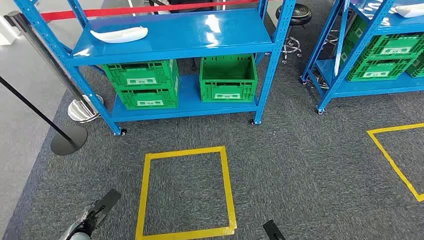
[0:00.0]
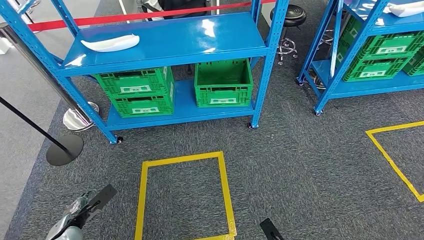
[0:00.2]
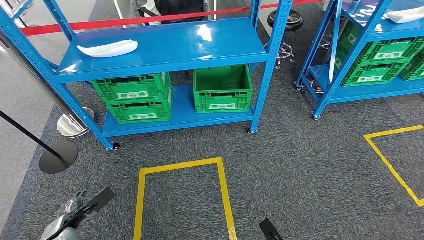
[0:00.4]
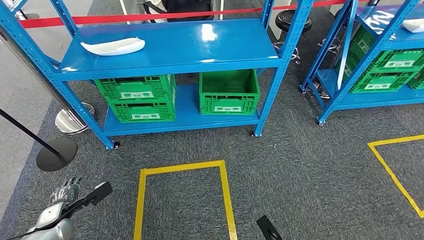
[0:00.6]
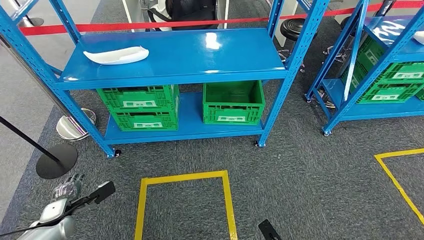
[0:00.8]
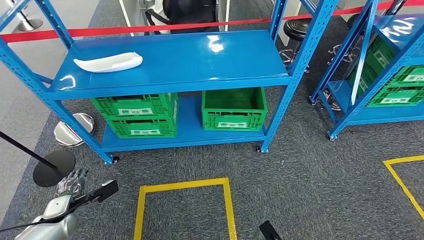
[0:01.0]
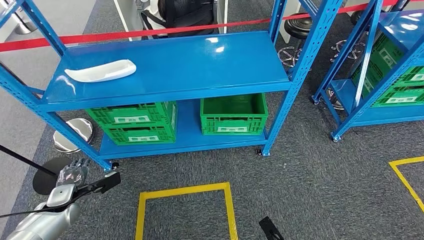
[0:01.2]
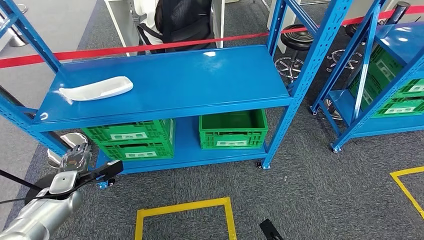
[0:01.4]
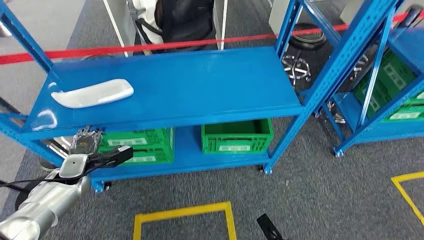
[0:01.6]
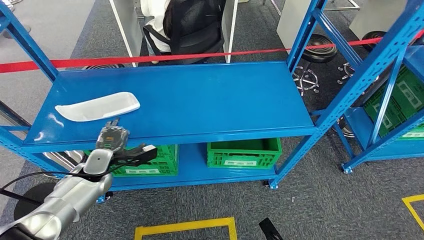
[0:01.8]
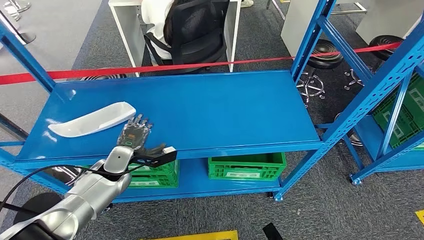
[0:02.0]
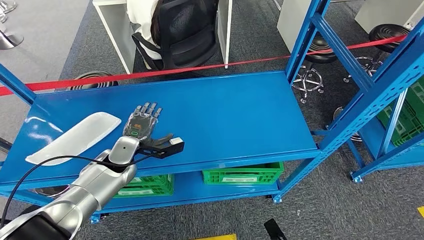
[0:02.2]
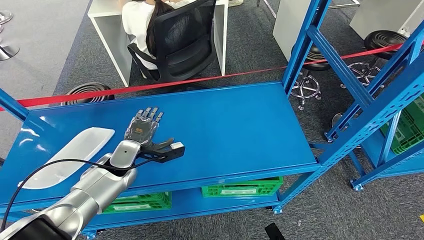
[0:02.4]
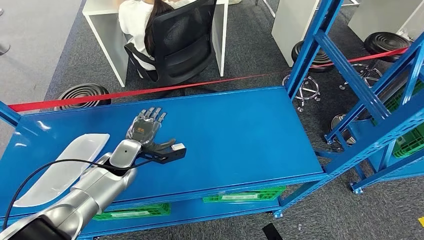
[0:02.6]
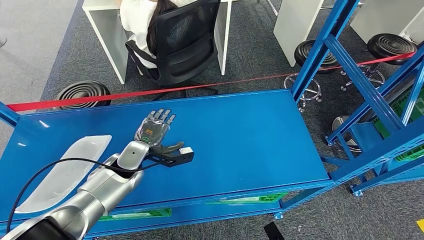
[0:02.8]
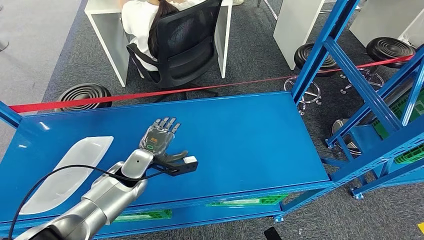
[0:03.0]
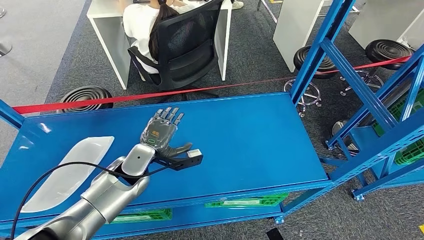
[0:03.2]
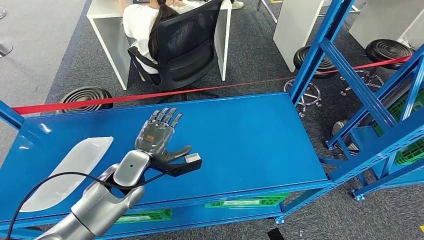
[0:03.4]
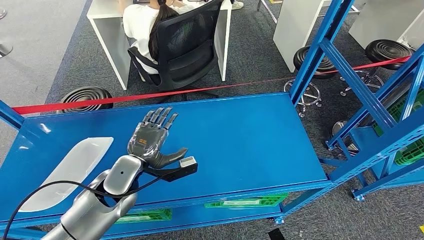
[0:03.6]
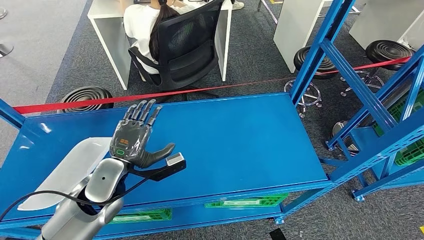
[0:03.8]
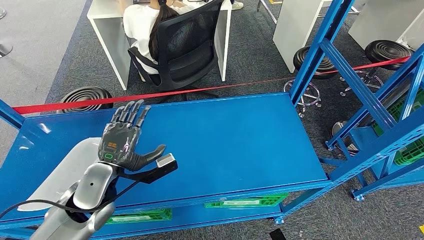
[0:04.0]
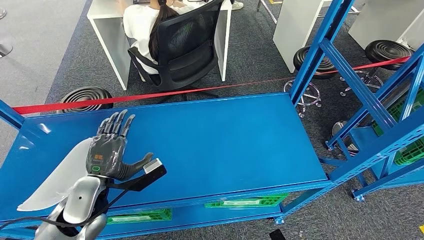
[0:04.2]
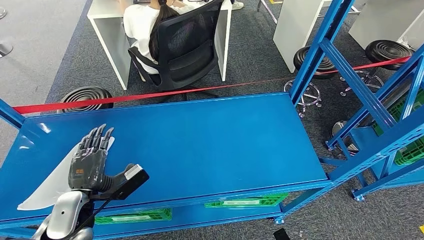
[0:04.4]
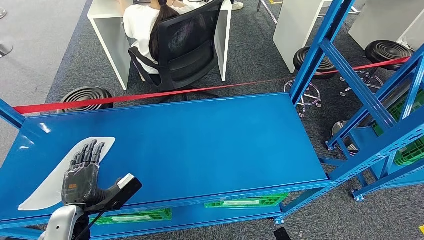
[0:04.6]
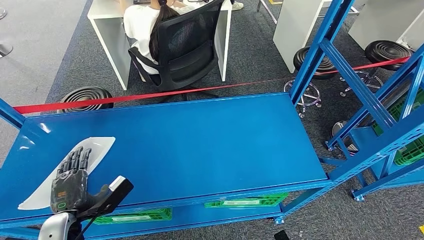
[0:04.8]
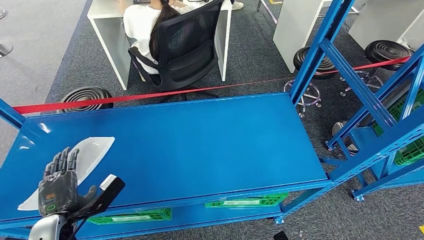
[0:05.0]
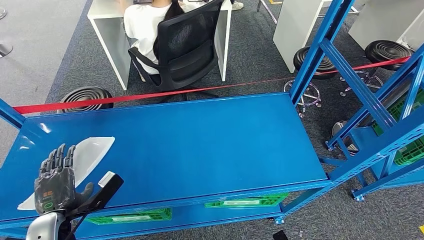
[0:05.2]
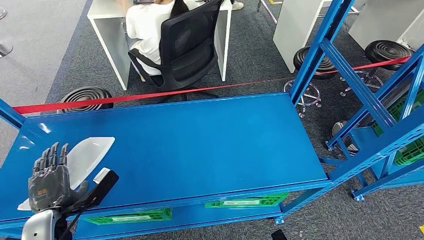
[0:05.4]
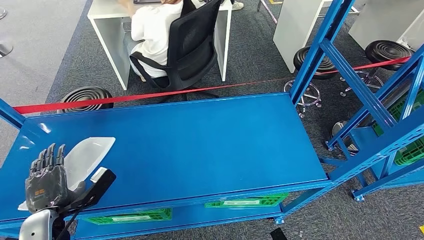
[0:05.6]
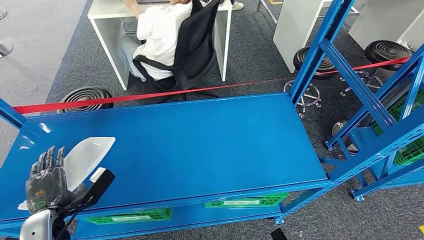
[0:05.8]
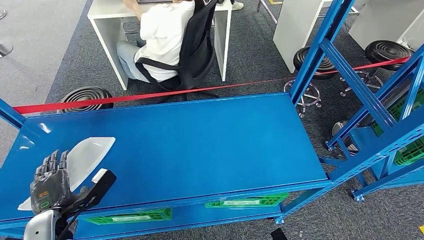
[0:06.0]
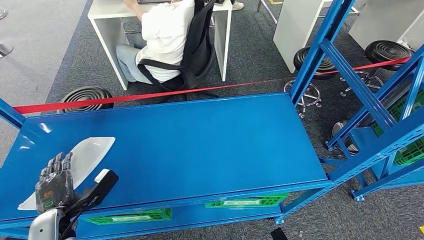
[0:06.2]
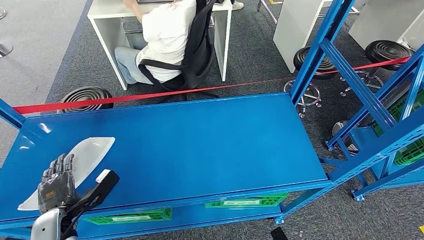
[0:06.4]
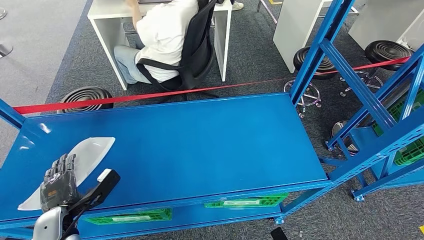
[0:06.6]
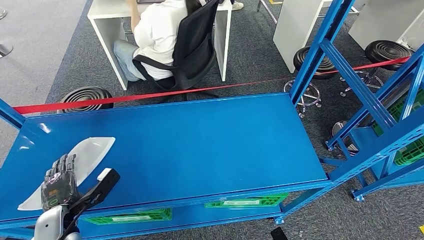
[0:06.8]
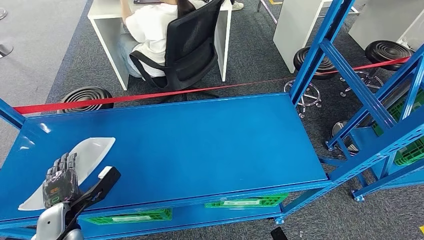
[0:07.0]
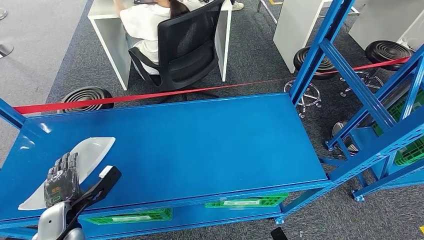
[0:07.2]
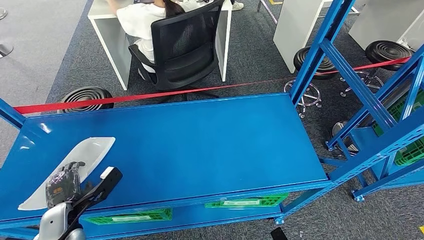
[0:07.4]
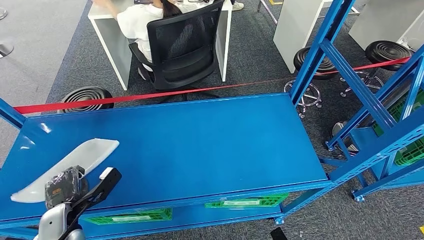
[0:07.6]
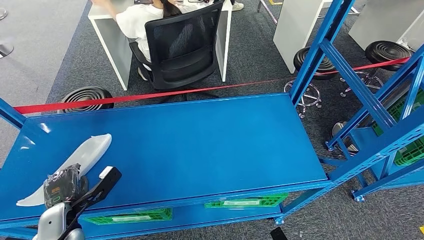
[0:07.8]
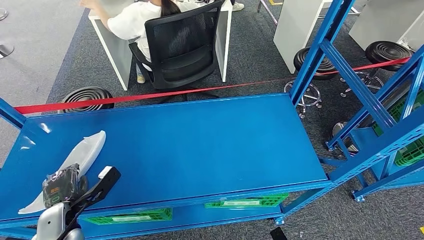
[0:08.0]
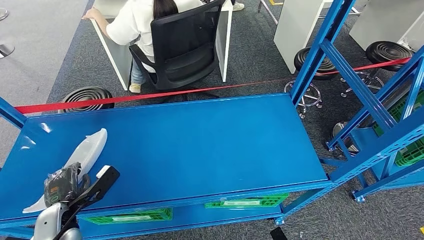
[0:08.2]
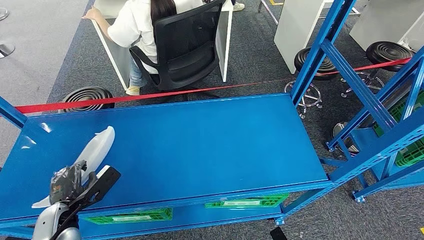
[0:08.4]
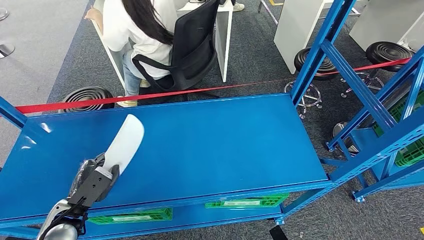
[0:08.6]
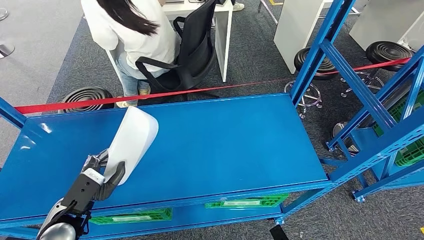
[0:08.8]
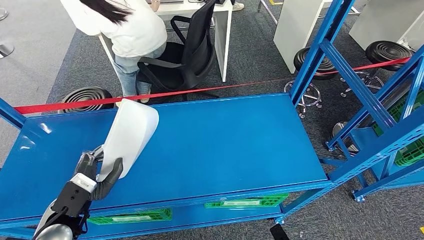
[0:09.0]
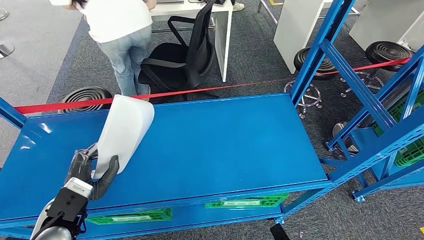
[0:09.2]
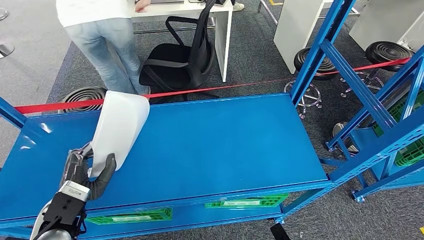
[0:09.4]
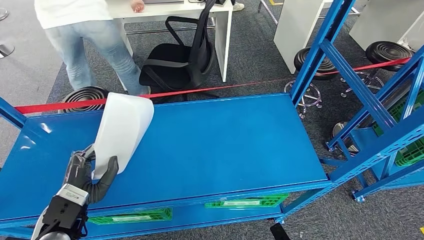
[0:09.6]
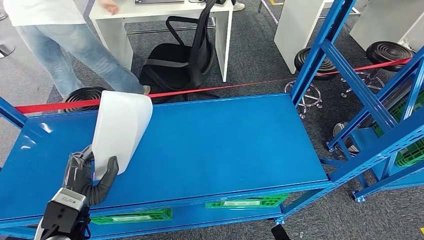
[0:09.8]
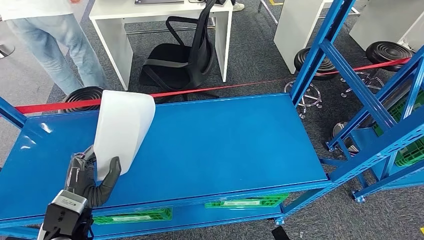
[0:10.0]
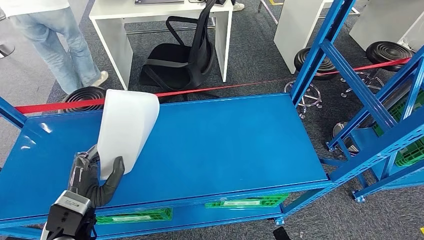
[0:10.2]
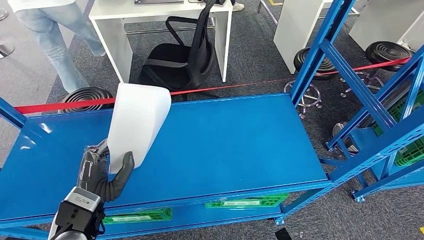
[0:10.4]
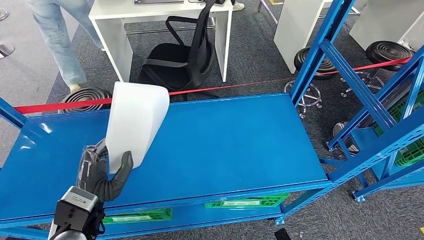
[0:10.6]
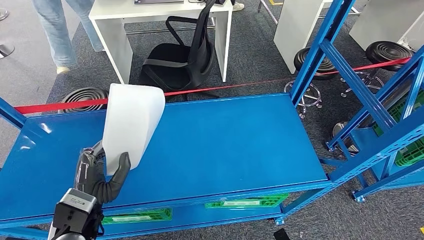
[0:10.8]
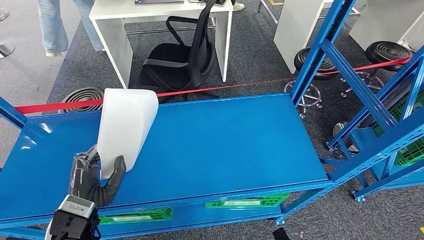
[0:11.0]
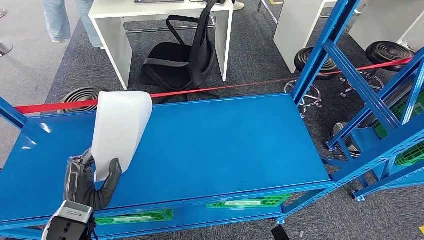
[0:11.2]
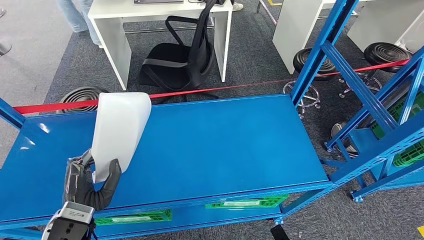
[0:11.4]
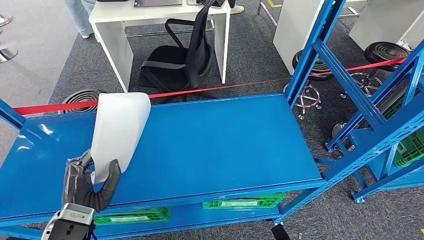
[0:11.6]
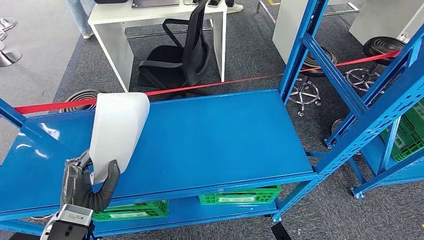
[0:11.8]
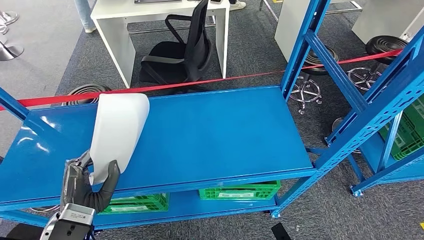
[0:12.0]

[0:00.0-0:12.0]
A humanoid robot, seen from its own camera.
Step, 0:00.0 to 0:10.4: Pick up the large material from the shelf.
0:03.0 to 0:04.4: The left hand is displaced backward and to the left by some 15 cm.
0:04.4 to 0:06.0: The left hand moves approximately 5 cm.
0:06.0 to 0:07.6: There are only small adjustments of the hands.
0:07.6 to 0:09.0: The left hand moves upward, about 5 cm.
0:09.0 to 0:10.4: The left hand travels to the right by about 5 cm.

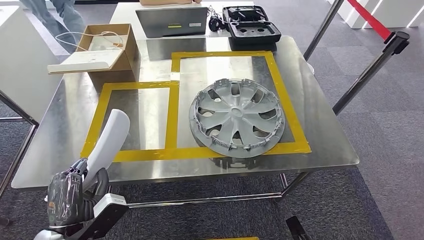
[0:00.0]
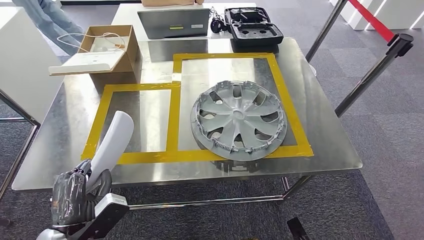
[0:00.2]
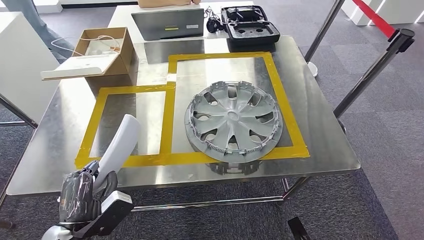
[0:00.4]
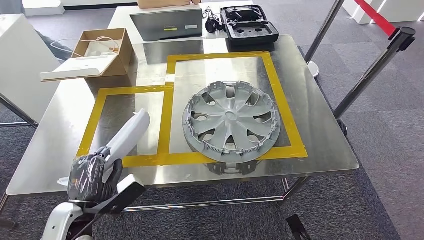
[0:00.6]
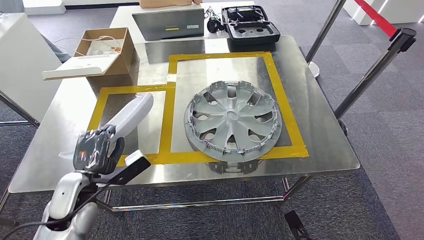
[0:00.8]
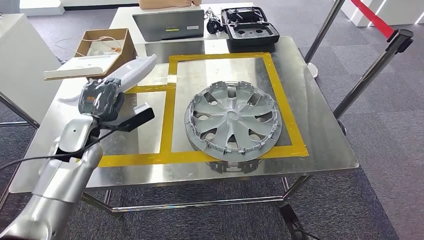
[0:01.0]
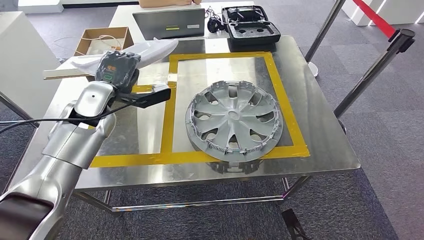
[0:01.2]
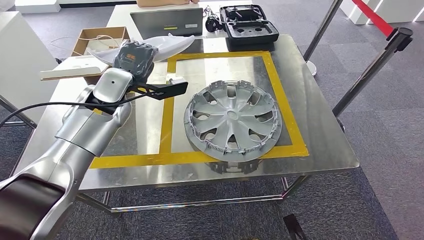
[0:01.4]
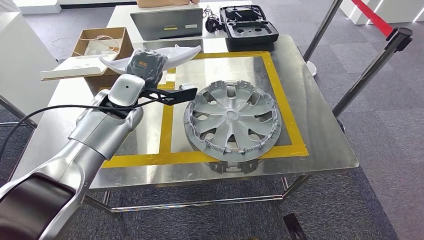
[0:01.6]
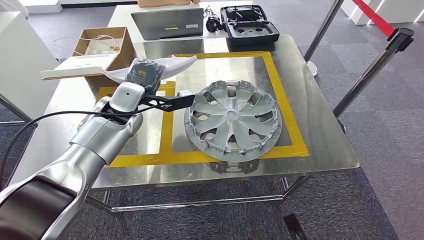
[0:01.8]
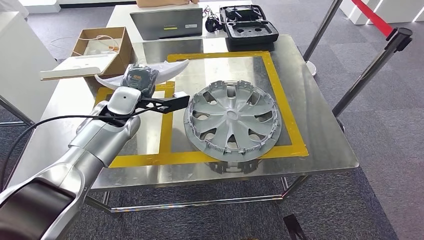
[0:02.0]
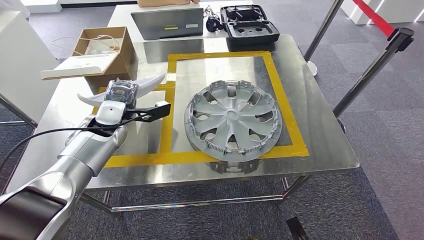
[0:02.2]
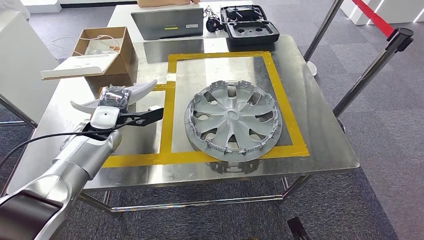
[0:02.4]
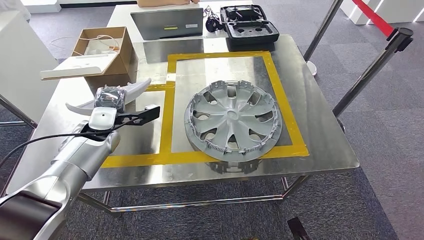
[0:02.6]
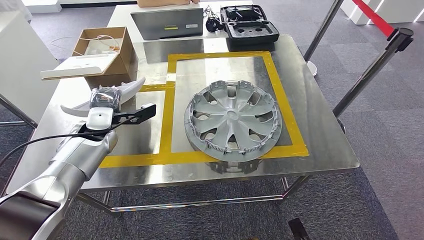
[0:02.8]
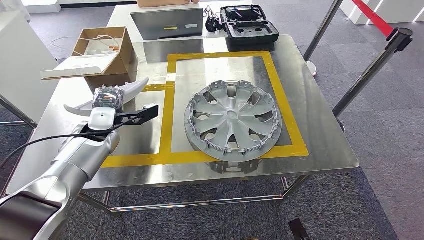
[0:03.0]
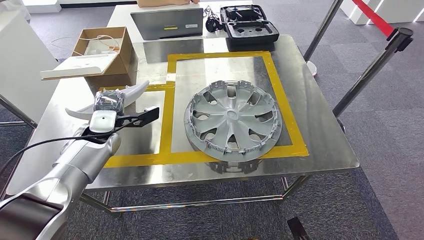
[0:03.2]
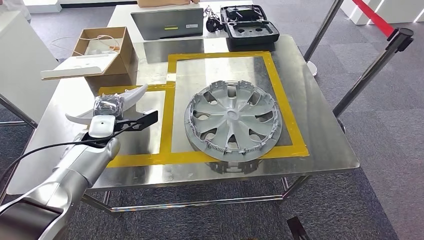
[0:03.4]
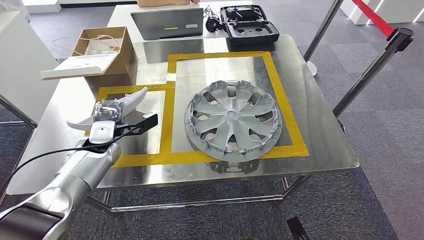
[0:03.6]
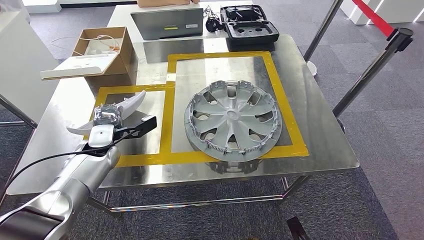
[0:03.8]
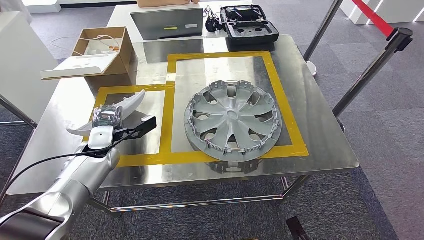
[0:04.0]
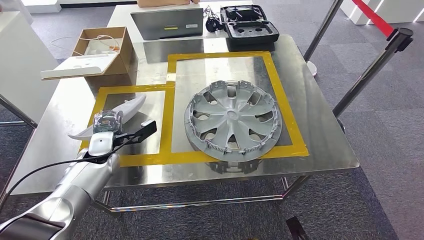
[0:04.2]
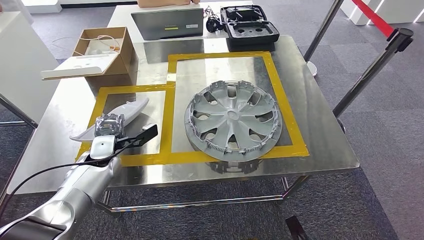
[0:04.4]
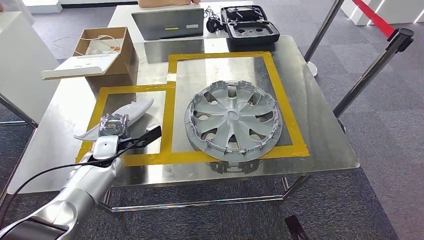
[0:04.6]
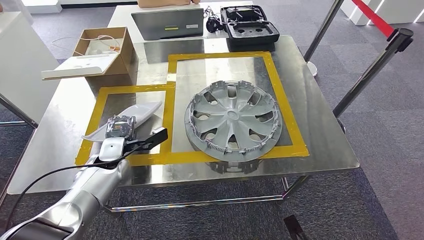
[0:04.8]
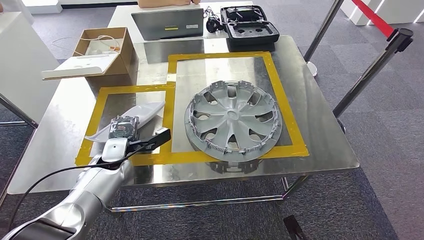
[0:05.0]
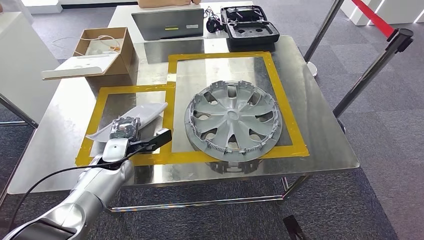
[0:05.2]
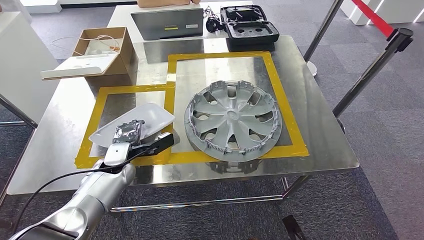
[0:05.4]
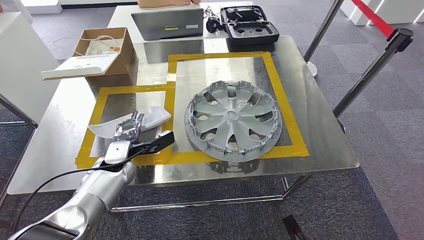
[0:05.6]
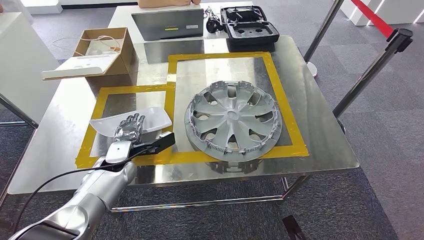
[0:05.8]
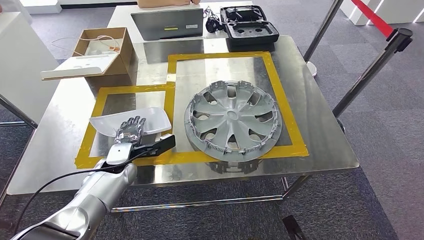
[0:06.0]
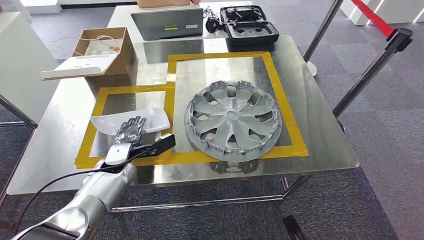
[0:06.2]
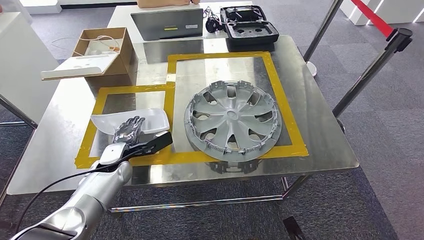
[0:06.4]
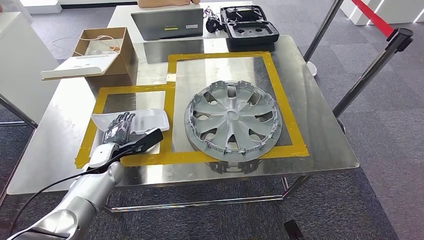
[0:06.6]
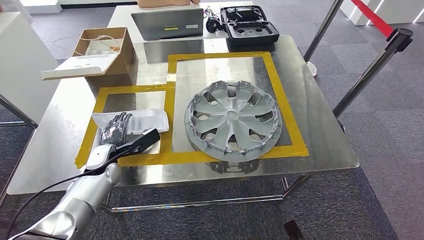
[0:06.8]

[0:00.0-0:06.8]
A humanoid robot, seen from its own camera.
0:01.4 to 0:02.8: The left hand is displaced downward and to the left by some 15 cm.
0:02.8 to 0:04.0: The left hand heads downward, covering roughly 5 cm.
0:04.0 to 0:05.4: The left hand shifts by some 5 cm.
0:05.4 to 0:06.8: The hands make only small movements.
